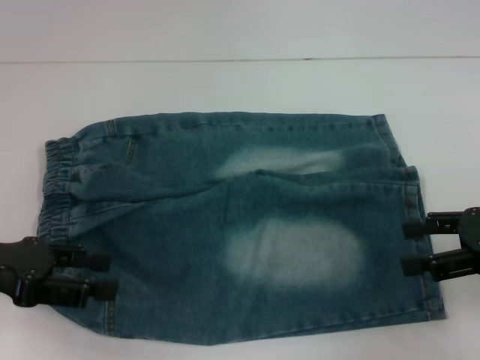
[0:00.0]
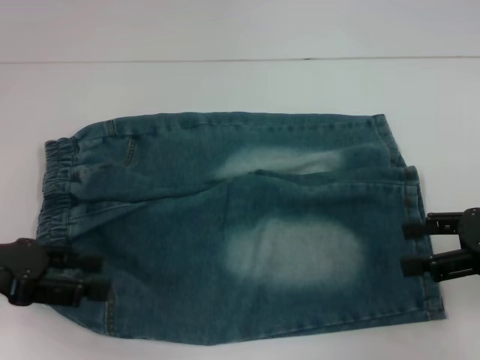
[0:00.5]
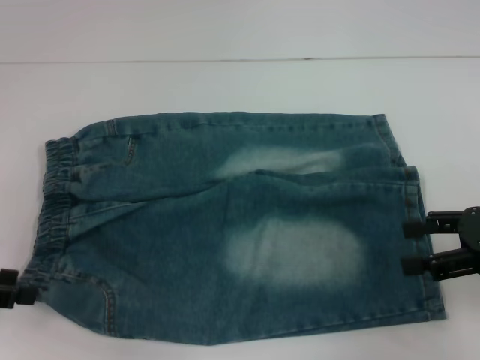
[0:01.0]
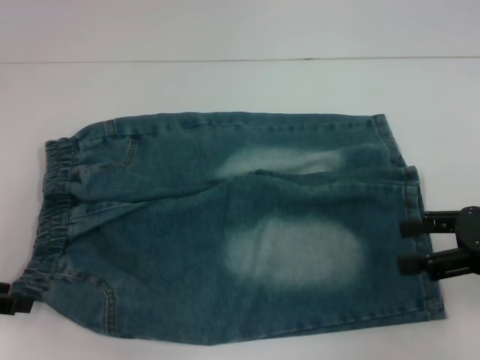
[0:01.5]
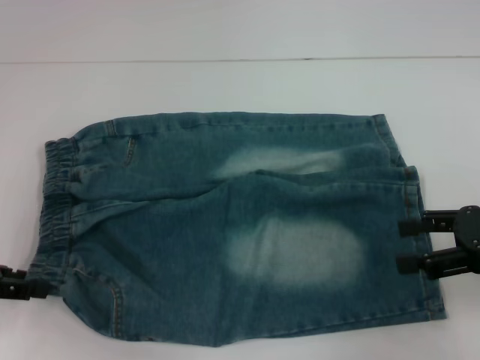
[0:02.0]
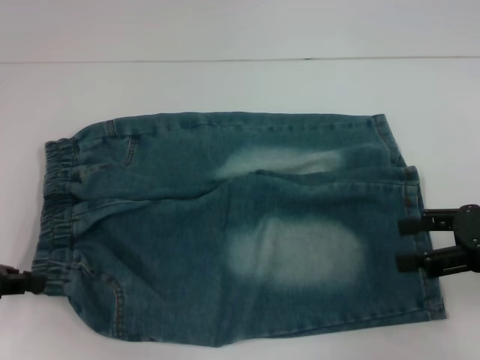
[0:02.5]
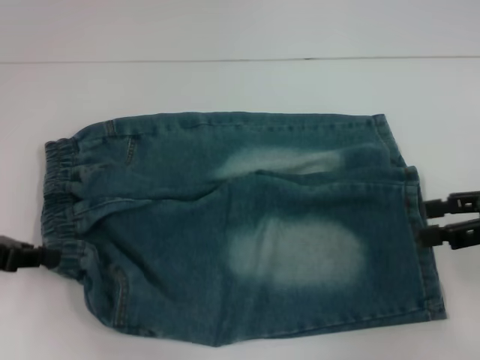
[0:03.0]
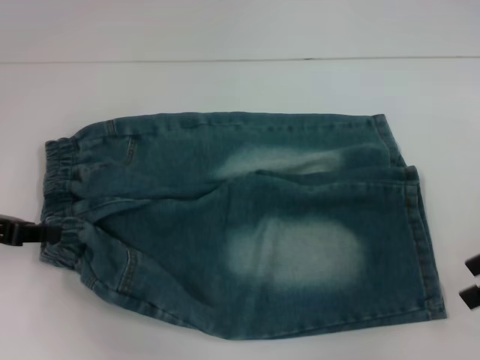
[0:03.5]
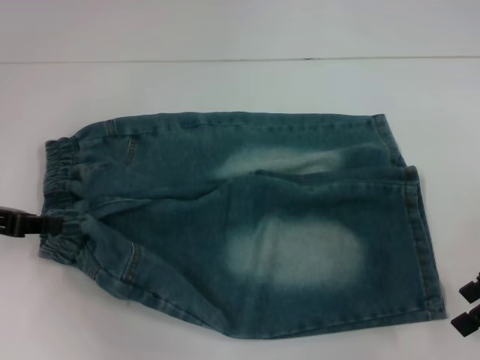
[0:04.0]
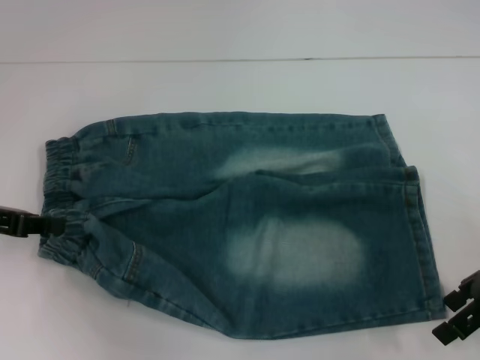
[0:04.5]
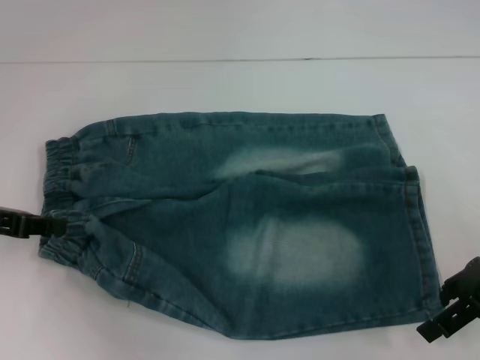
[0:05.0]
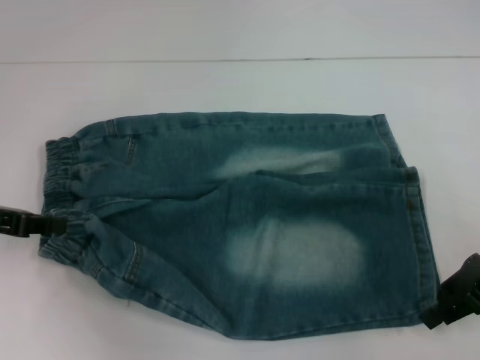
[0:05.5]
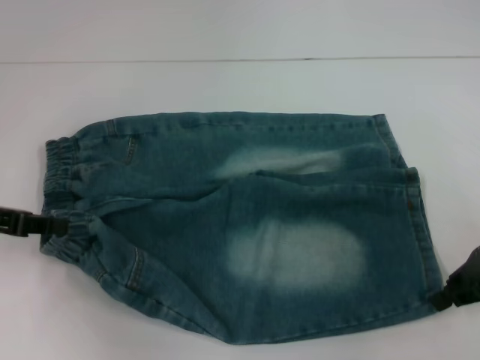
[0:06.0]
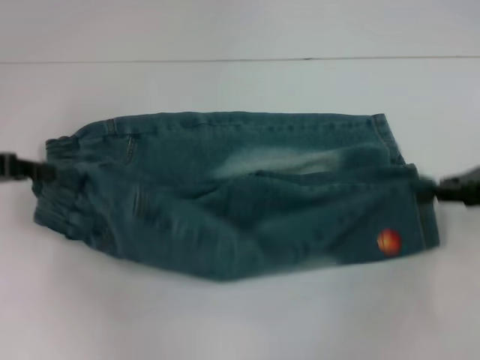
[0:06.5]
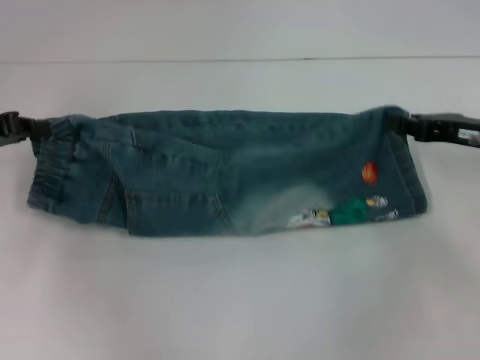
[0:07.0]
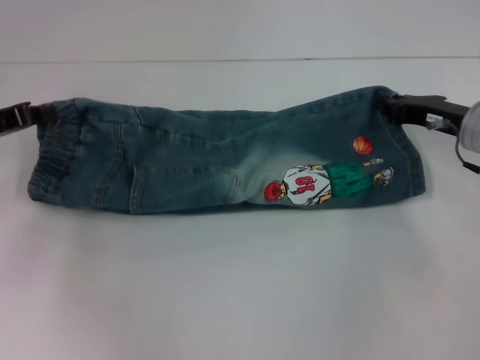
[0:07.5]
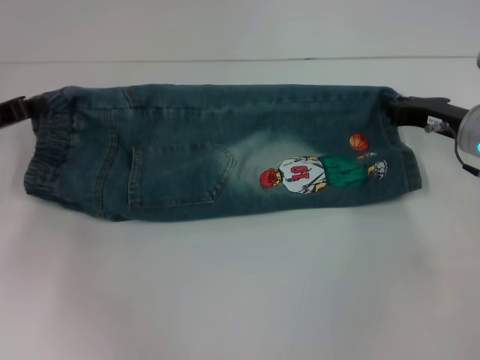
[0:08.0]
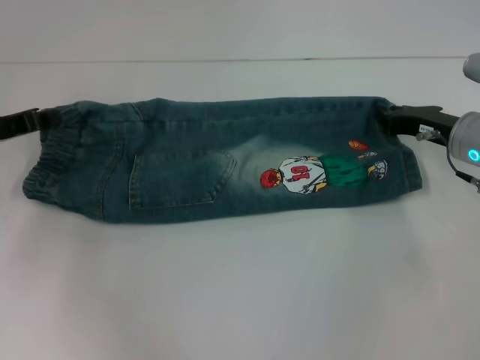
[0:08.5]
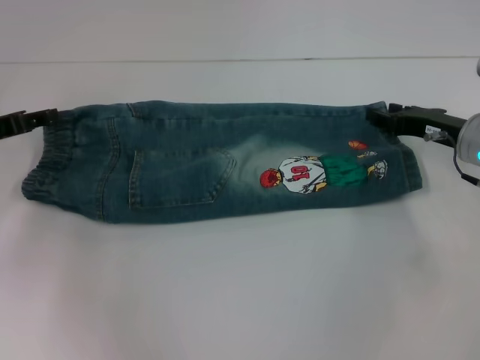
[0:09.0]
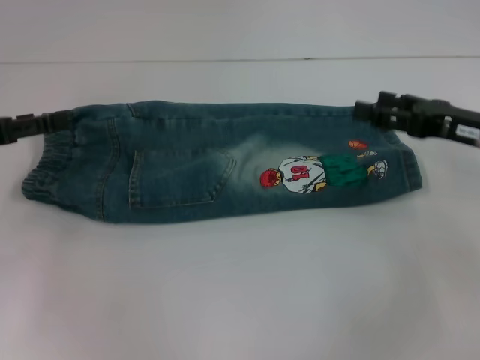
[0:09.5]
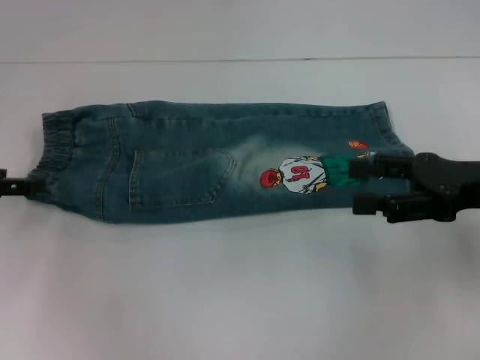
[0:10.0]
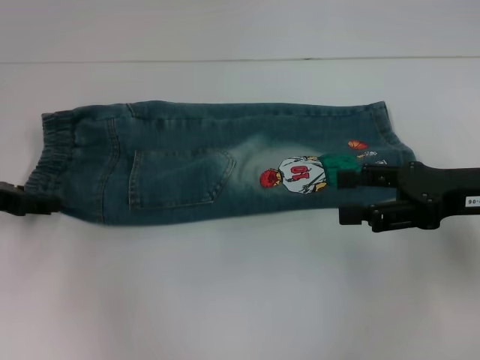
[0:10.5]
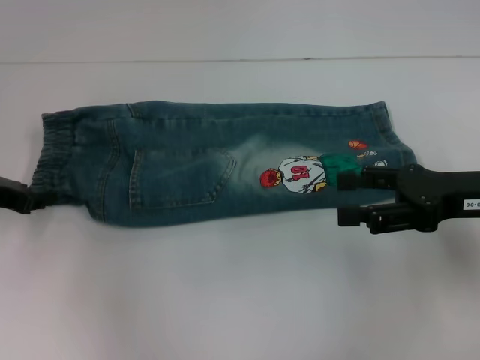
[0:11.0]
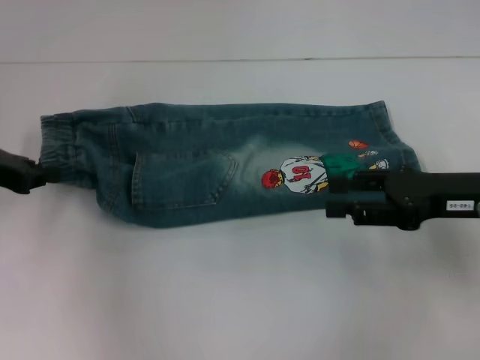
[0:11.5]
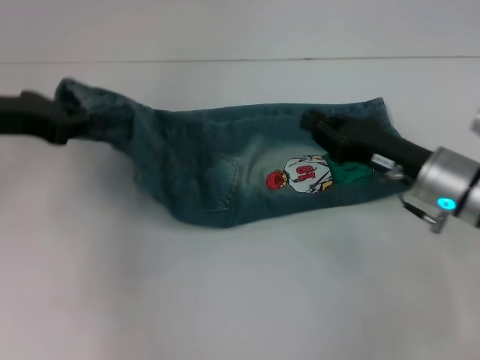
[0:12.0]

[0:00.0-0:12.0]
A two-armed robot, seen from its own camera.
Step, 0:00.0 to 0:02.5: Hold the lower left waistband with your left hand.
Step, 0:03.0 to 0:06.0: Grab the lower right pant leg with your right hand.
Step, 0:06.5 to 0:09.0: Fold upward with your right hand.
Step, 0:09.5 to 0:11.0: Hold the waistband with your left hand.
0:00.0 to 0:02.0: The left gripper moves roughly 5 cm.
0:02.0 to 0:04.0: The left gripper closes.
0:04.0 to 0:06.0: The right gripper closes.
0:06.0 to 0:08.0: The grippers both shift forward by roughly 5 cm.
0:08.0 to 0:10.0: The left gripper ends up about 5 cm from where it was, and opens its fingers. Meanwhile the right gripper heads backward and upward, covering roughly 10 cm, and opens.
0:10.0 to 0:12.0: The right gripper goes approximately 10 cm downward and to the left, and closes up. The left gripper heads to the right and upward, covering some 10 cm, and closes up.

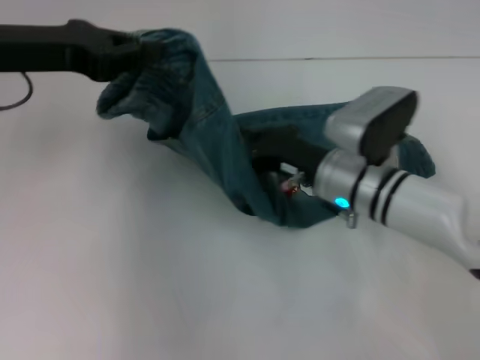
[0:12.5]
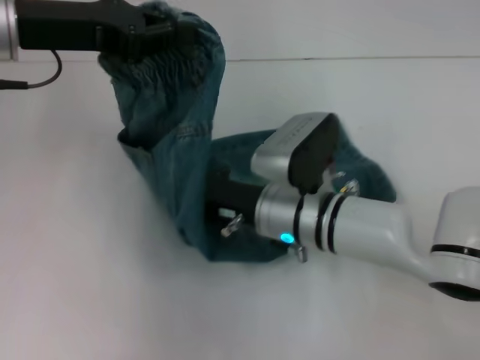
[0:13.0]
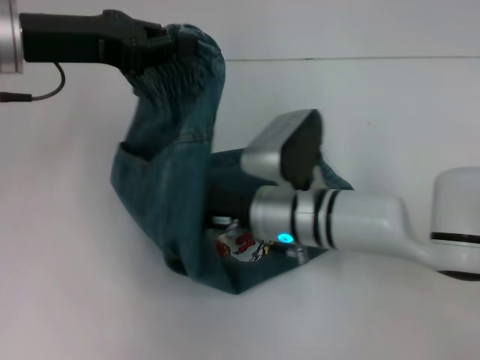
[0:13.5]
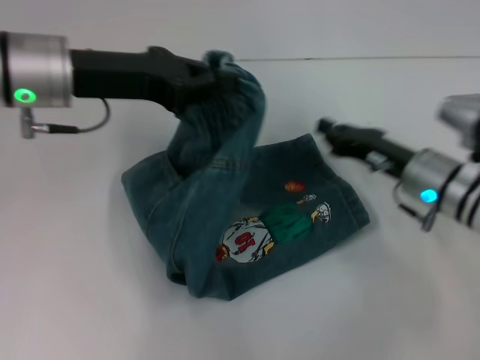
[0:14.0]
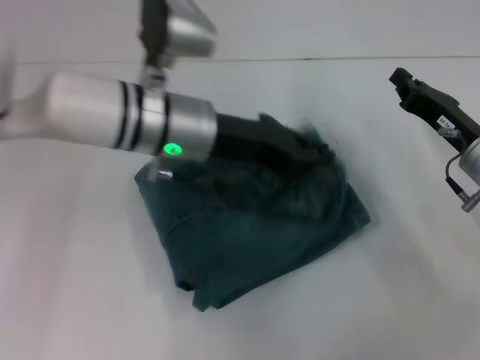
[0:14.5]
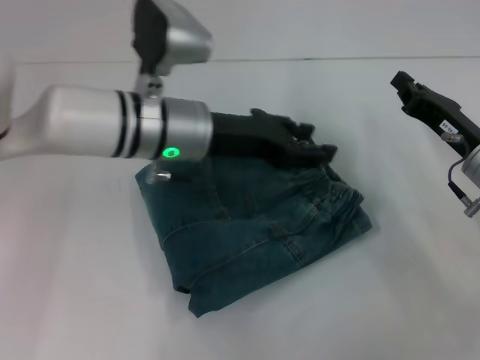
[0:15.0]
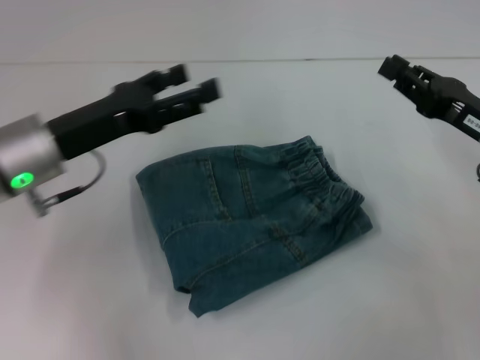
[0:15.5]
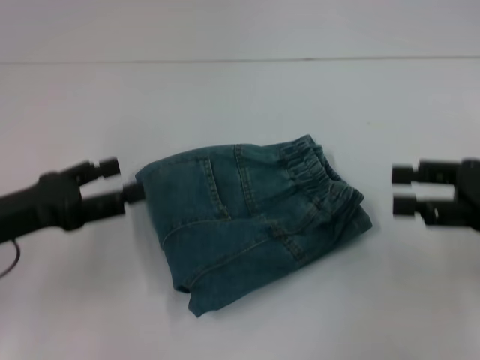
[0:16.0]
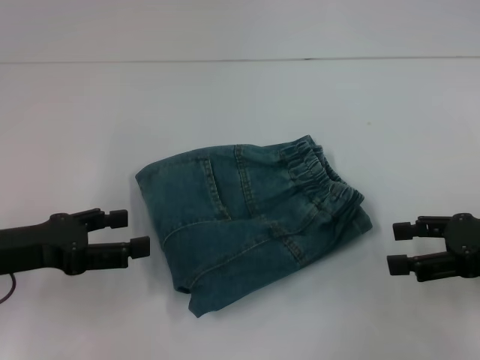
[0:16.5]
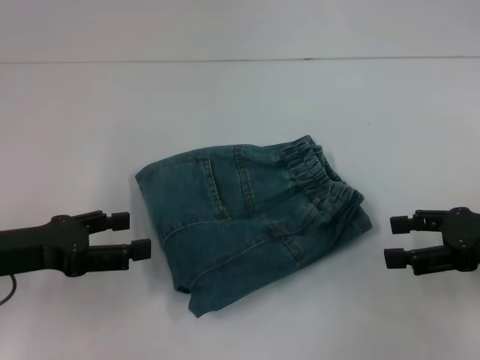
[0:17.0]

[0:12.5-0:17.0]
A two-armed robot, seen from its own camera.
Step, 0:14.0 to 0:14.5: Fold to the right with your left hand.
0:12.5 to 0:14.5: The right gripper goes roughly 15 cm to the right; the left gripper moves to the right and downward, about 20 cm.
0:14.5 to 0:17.0: The left gripper shifts some 25 cm to the left and backward, and opens up. Meanwhile the right gripper moves backward and to the right, roughly 10 cm, and opens up.
